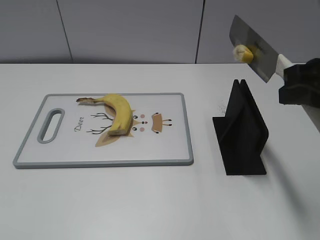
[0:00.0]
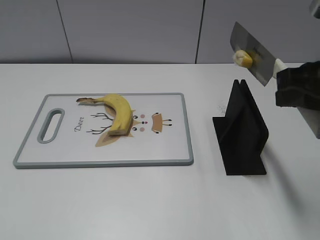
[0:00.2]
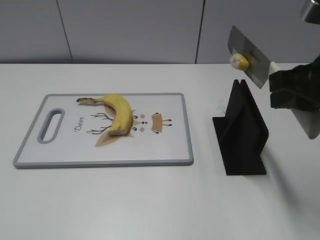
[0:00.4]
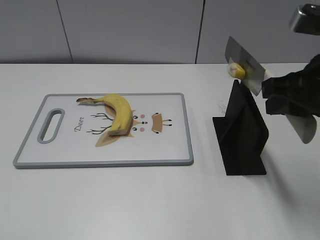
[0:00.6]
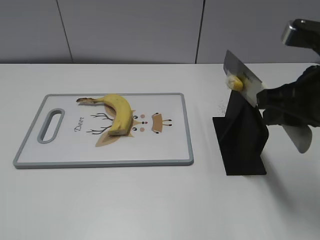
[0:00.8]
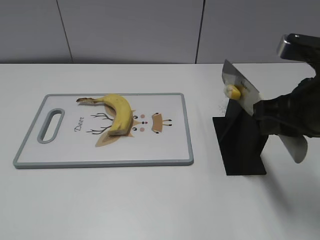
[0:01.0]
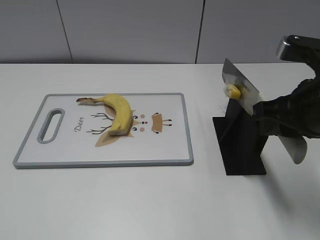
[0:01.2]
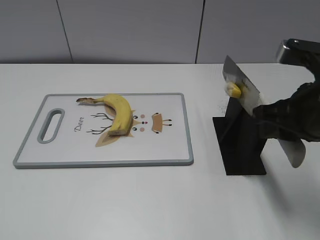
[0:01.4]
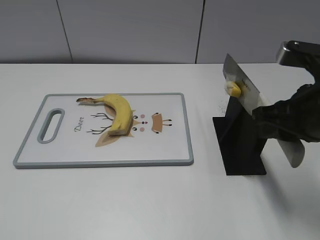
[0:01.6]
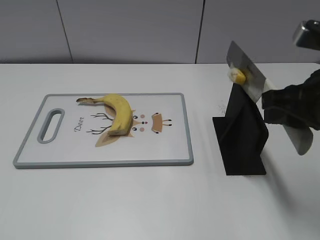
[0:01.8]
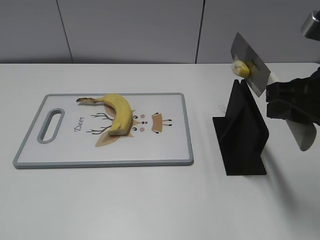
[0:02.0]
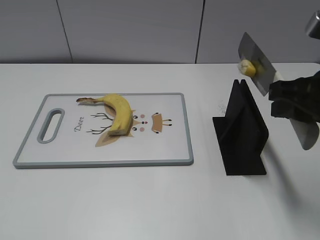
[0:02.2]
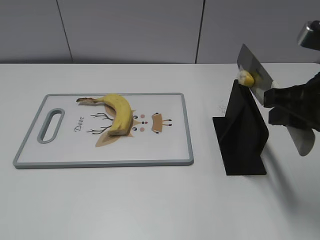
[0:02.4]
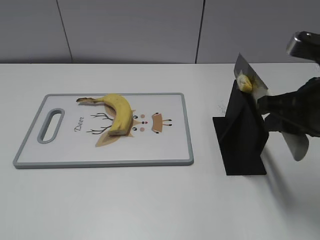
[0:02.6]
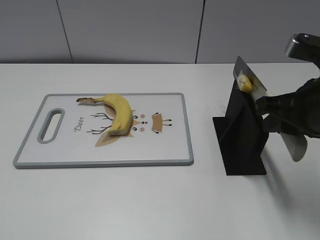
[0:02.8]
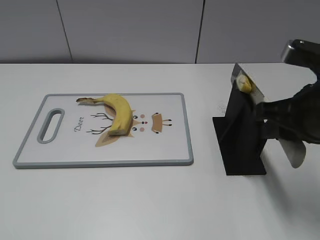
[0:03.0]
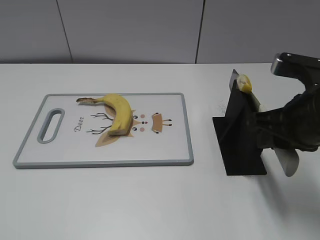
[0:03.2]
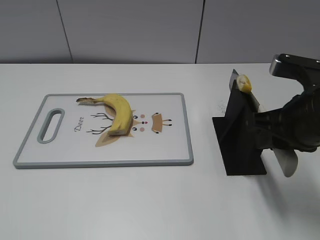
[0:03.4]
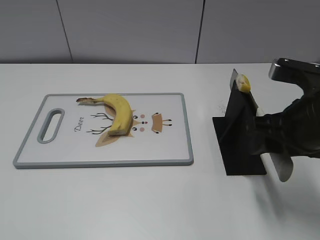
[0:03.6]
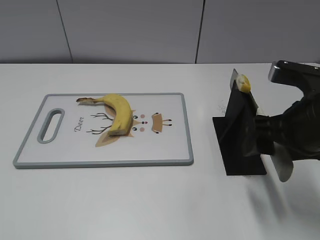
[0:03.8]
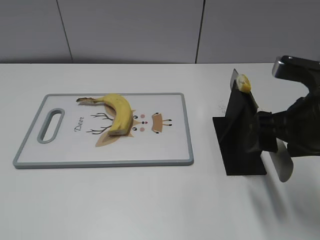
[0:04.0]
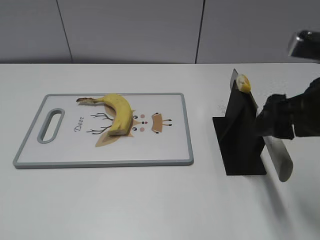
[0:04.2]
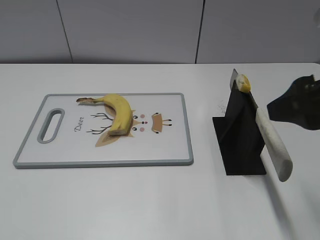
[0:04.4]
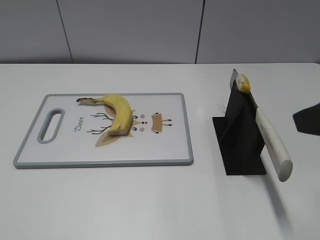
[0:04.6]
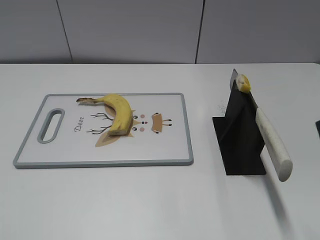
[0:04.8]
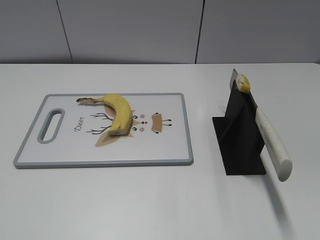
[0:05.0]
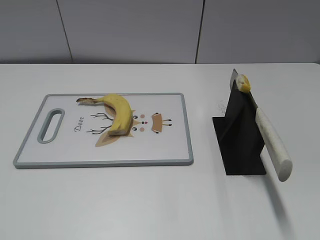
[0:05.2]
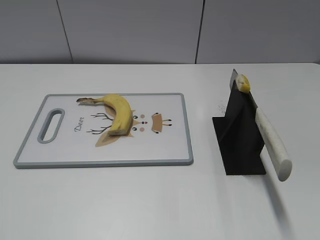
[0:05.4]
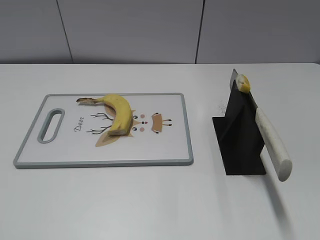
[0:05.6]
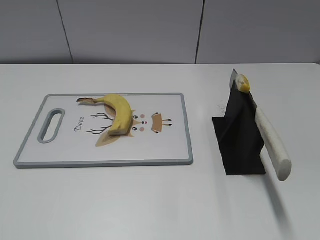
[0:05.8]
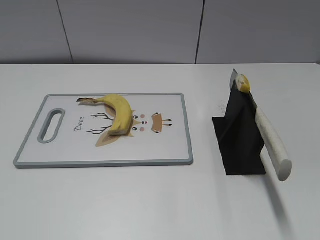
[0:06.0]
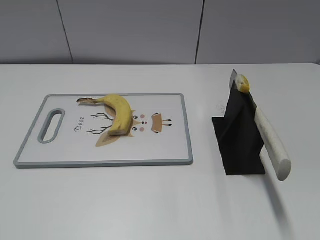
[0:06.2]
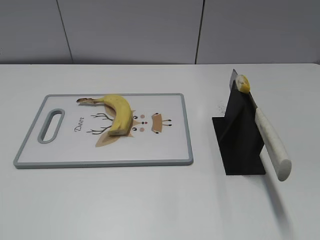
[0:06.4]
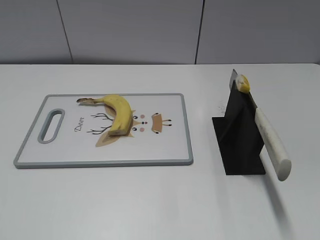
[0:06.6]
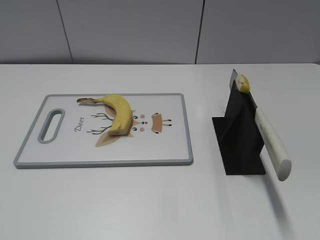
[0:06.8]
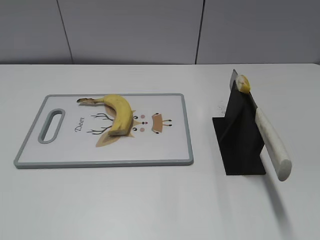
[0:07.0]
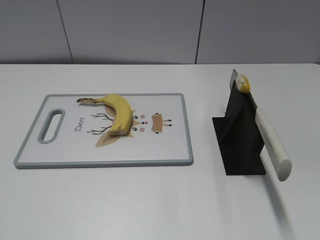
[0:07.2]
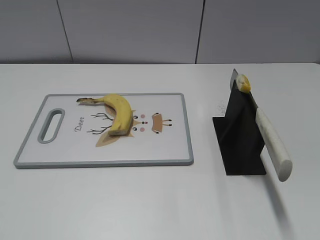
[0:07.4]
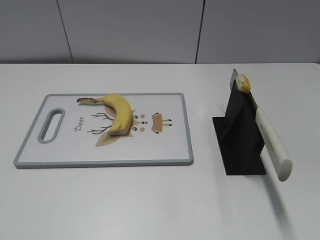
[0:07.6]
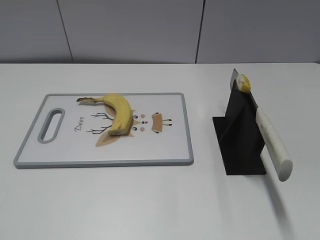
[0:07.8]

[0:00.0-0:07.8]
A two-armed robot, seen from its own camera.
Task of the whole recording: cut banana.
Step, 0:01.2 to 0:02.4: Lift the knife with your right hand.
Step, 0:02.6 to 0:07.8: Place the knife on the storage rack with your right hand.
0:00.0 to 0:01.6: The right gripper moves downward, approximately 5 cm.
0:01.6 to 0:03.2: The grippers stay close to where they were, moving slightly.
0:03.2 to 0:04.6: The right gripper heads upward and backward, covering approximately 10 cm, and opens up.
0:04.6 to 0:06.2: The right gripper travels backward and to the right by some 20 cm.

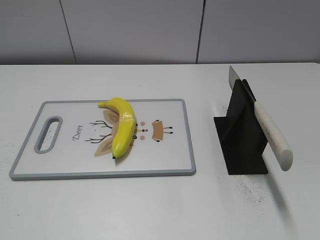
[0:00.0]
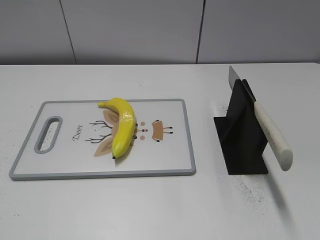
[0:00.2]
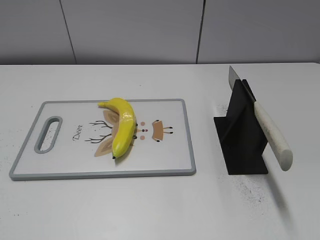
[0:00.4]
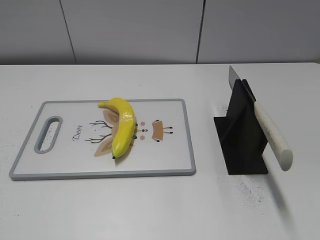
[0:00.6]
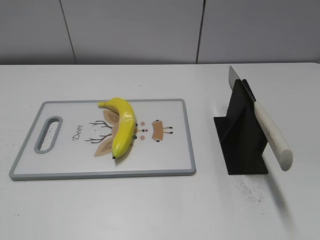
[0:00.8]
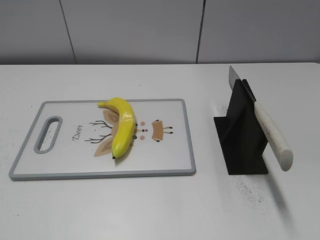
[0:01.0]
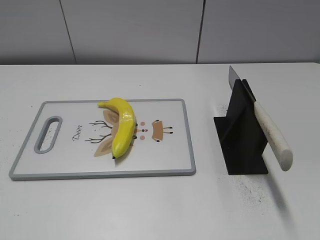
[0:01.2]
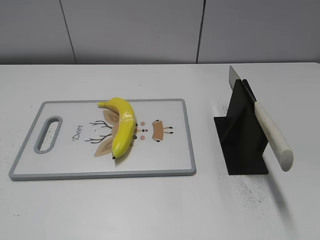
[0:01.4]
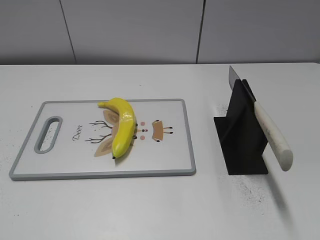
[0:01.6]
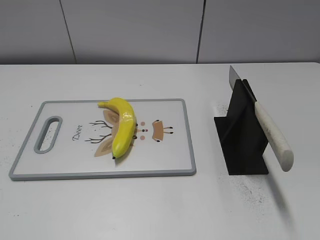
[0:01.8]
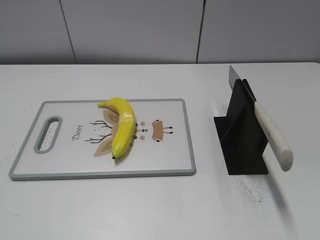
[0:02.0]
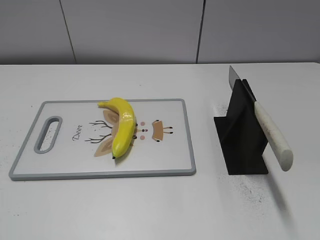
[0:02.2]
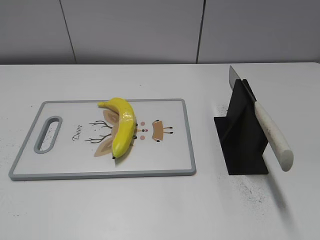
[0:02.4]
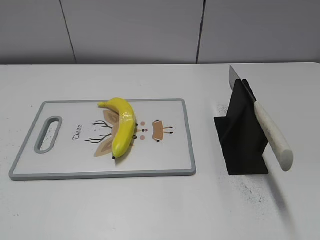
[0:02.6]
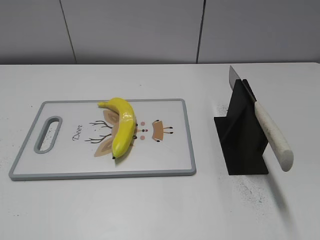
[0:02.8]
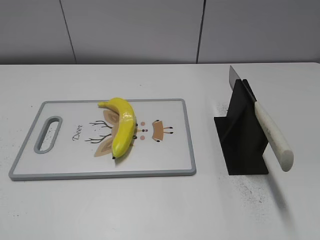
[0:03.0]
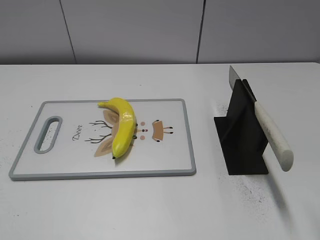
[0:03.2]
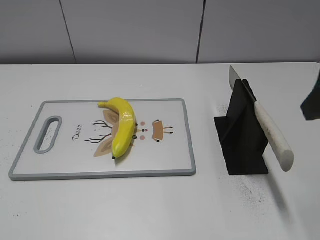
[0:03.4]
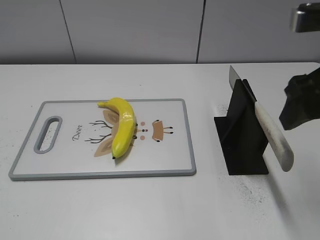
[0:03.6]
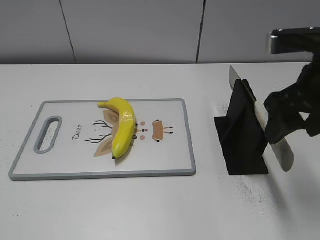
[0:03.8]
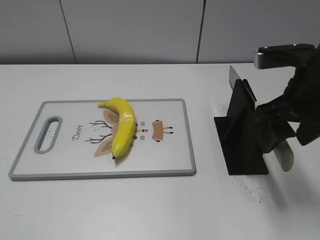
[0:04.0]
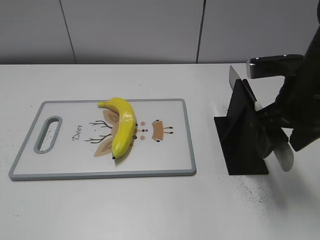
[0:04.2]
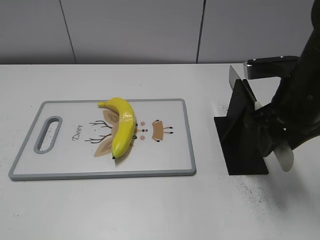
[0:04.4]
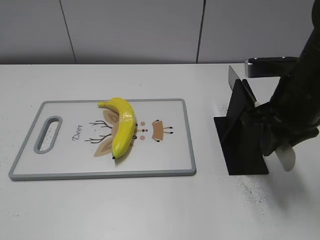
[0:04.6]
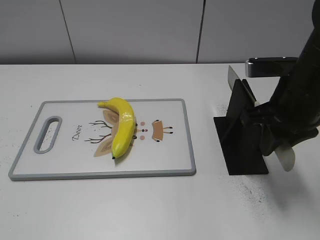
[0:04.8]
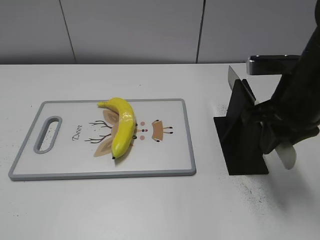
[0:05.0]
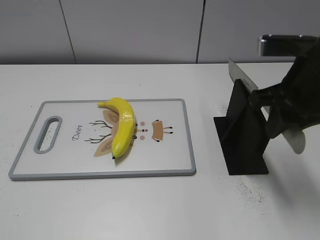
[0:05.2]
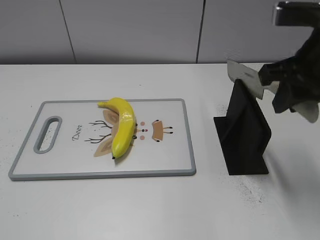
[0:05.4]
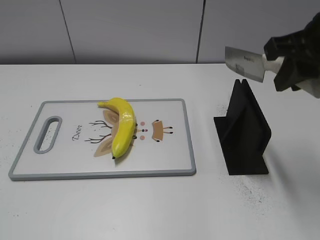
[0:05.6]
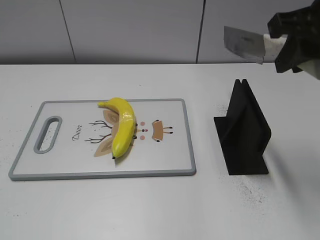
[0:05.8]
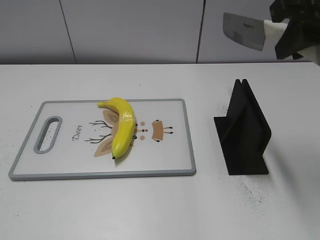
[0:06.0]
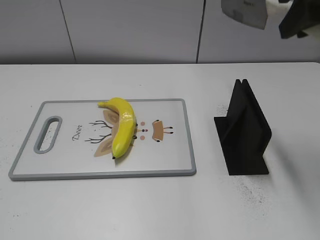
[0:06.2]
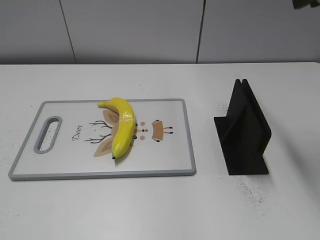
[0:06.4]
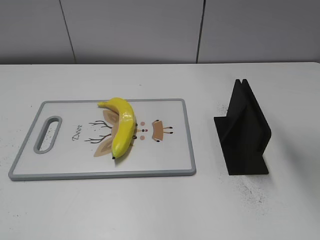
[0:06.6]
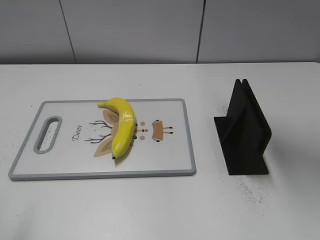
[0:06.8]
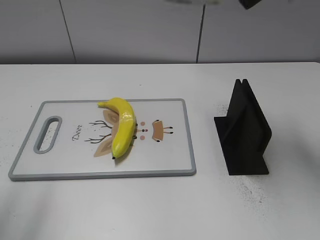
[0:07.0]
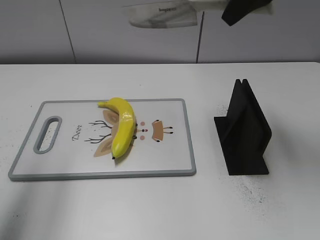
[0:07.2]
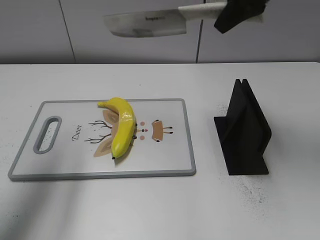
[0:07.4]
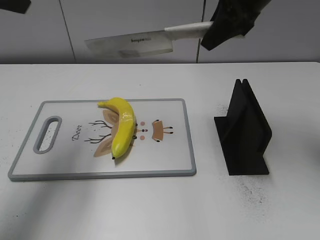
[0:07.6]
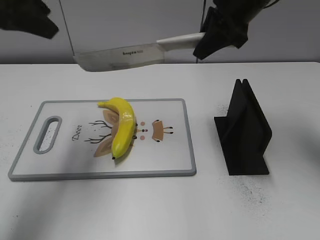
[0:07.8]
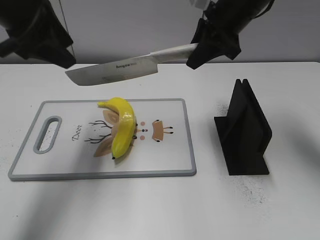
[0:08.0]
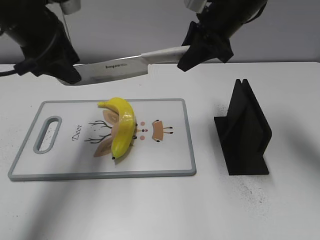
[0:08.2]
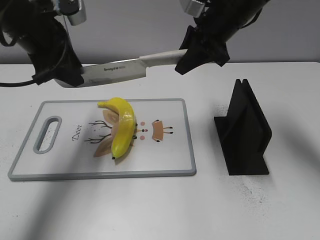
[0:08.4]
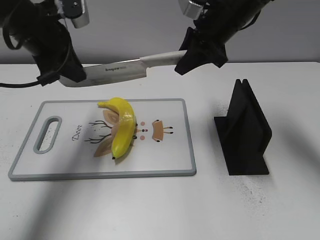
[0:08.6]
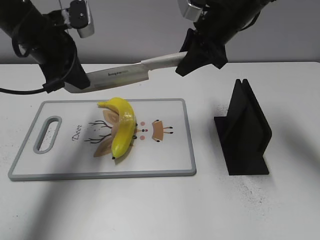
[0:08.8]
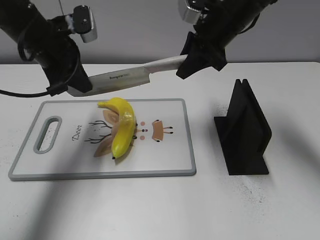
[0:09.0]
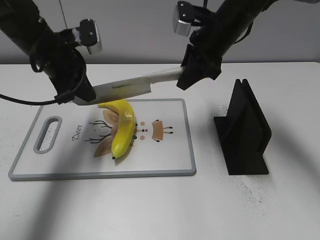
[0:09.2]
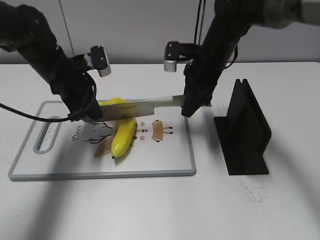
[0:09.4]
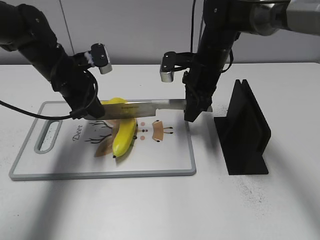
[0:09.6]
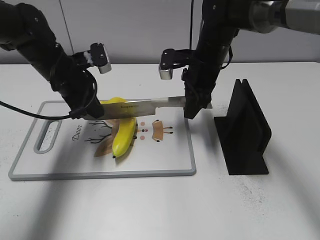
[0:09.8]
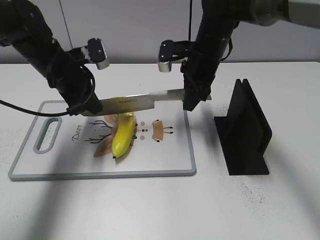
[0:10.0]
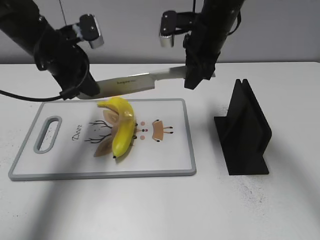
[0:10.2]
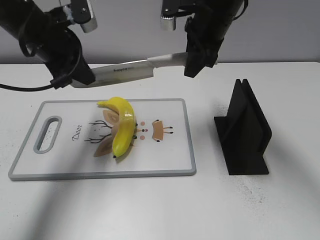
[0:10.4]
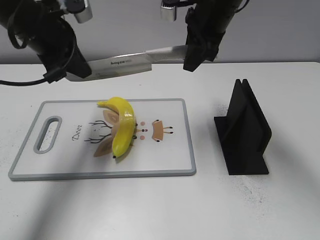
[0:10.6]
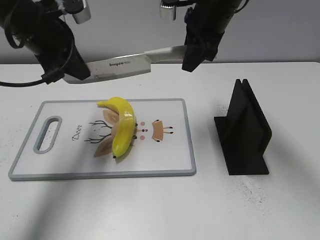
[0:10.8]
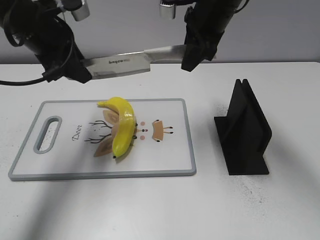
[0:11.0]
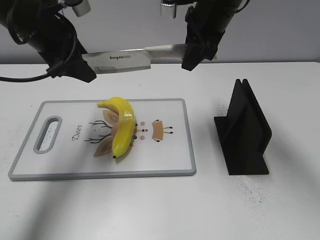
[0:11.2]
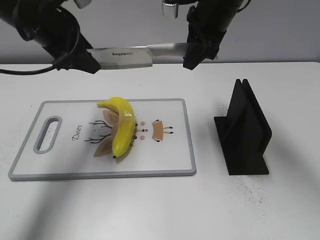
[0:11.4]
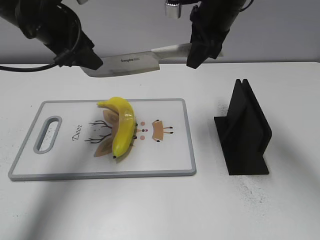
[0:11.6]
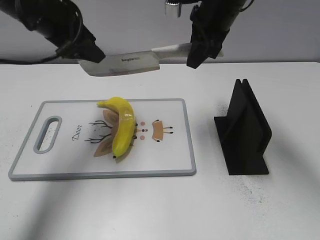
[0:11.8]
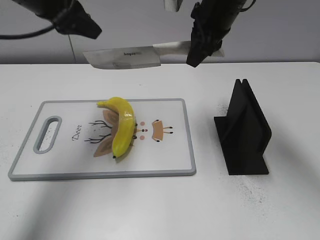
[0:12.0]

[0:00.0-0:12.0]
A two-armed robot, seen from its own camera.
Task of the whole recording: cut plastic banana.
Step, 0:00.0 to 0:05.8: Grab the knife handle with your right hand.
Step, 0:06.0 to 0:10.6: Lift the knife with your right hand.
0:03.0 to 0:04.4: The right gripper travels forward, downward and to the left by about 20 cm, and closes.
0:04.4 to 0:06.0: The right gripper shifts about 15 cm upward, and closes.
0:06.0 to 0:07.6: The right gripper heads forward, covering approximately 15 cm; the left gripper goes roughly 30 cm forward.
0:07.6 to 0:09.0: The left gripper shifts some 20 cm downward, forward and to the right, and closes up. Meanwhile the right gripper goes roughly 5 cm downward.
0:09.0 to 0:10.4: The left gripper moves approximately 10 cm downward and comes back; the right gripper goes downward and returns, approximately 10 cm each way.
0:10.4 to 0:12.0: The left gripper goes some 5 cm upward, and opens its fingers.

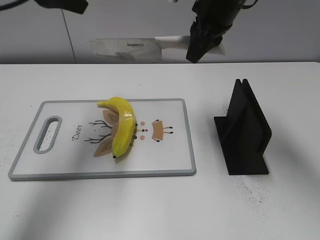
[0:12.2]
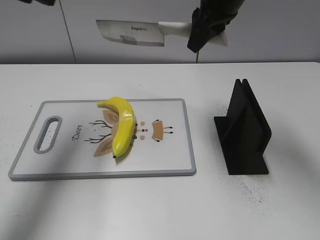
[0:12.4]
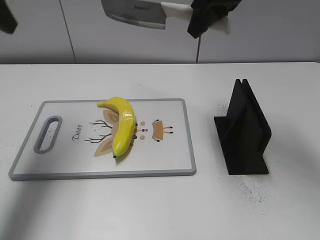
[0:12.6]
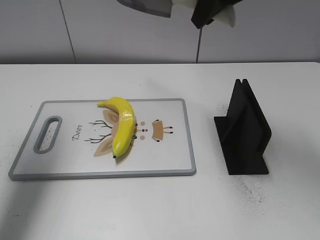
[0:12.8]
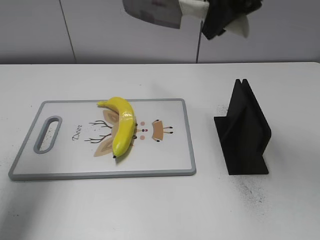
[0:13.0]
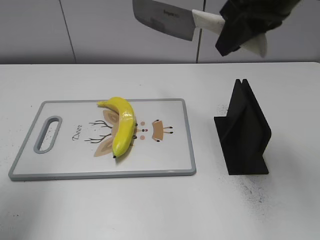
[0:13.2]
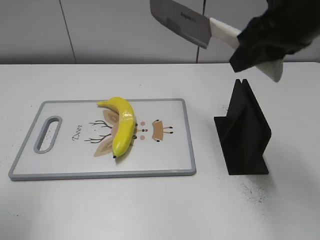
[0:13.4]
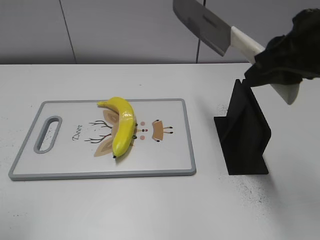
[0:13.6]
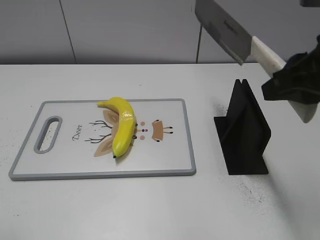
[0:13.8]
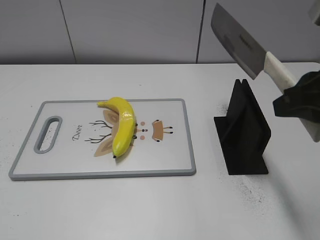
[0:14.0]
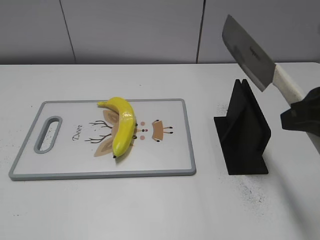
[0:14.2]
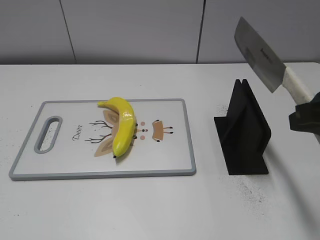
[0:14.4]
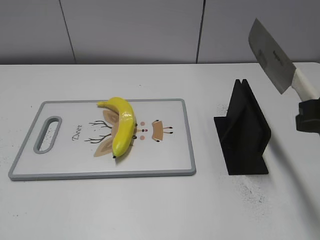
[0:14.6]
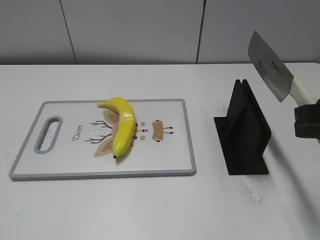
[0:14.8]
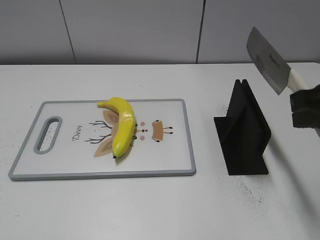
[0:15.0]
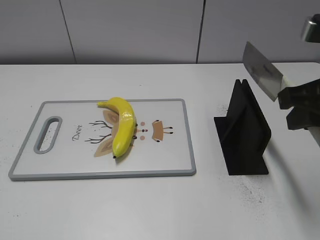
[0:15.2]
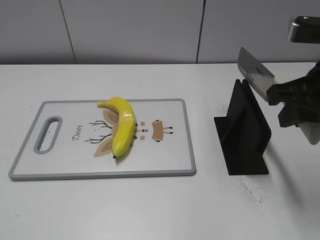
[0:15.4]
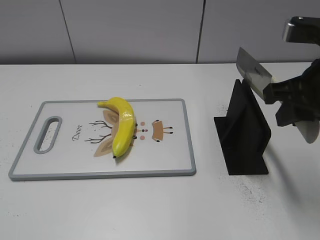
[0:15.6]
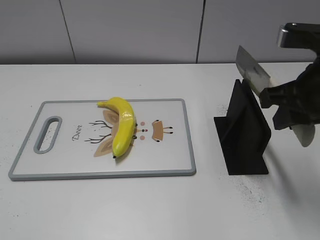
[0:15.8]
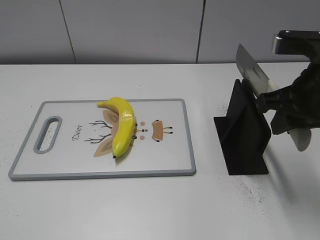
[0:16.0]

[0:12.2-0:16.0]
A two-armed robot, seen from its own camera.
Task of the whole recording: cut plastic banana.
Step, 0:12.2 to 0:14.2: Lift the knife with your right hand.
0:12.2 to 0:13.4: The right gripper is displaced backward and to the right by about 15 cm; the left gripper is displaced backward and to the left by some 20 cm.
0:13.4 to 0:14.8: The right gripper heads backward, to the right and downward, covering approximately 15 cm, while the left gripper travels backward by roughly 20 cm.
0:14.8 to 0:16.0: The right gripper heads forward, covering some 5 cm.
